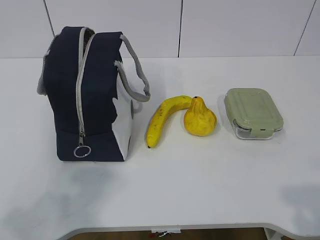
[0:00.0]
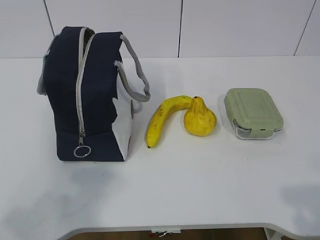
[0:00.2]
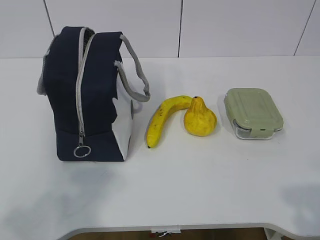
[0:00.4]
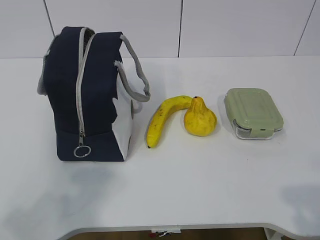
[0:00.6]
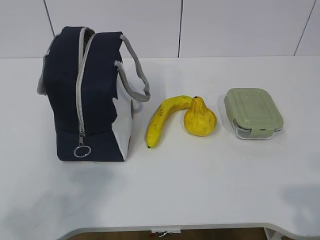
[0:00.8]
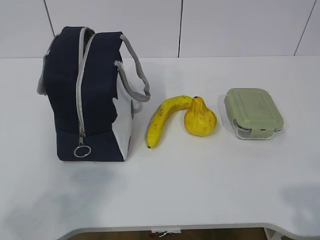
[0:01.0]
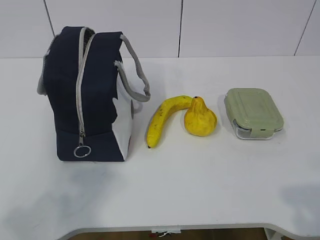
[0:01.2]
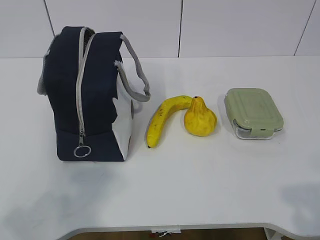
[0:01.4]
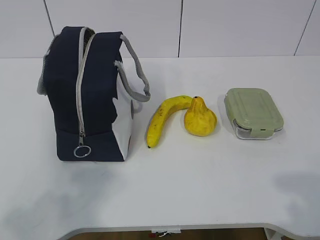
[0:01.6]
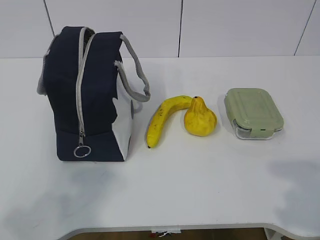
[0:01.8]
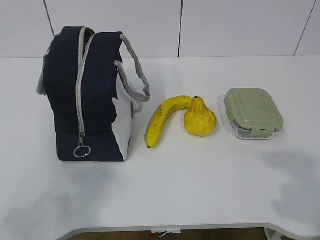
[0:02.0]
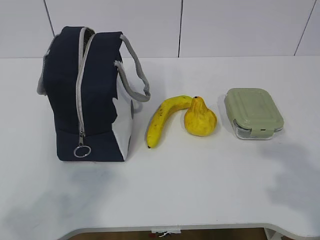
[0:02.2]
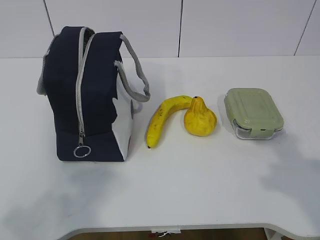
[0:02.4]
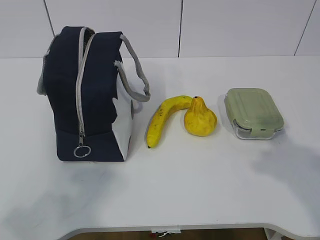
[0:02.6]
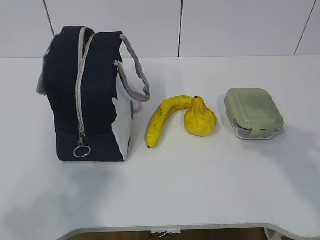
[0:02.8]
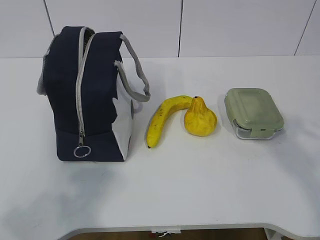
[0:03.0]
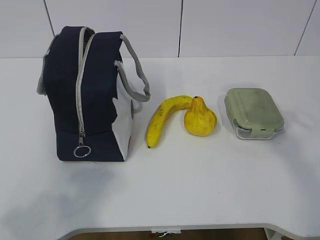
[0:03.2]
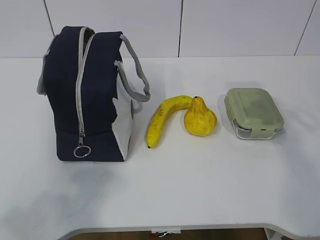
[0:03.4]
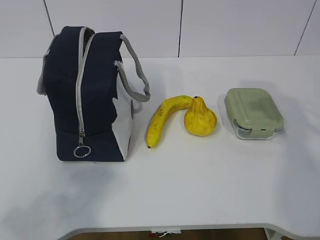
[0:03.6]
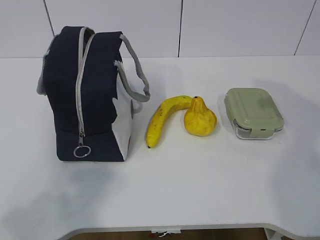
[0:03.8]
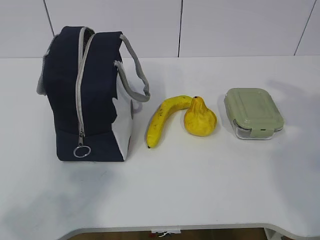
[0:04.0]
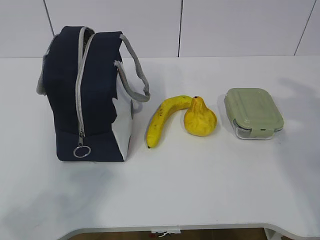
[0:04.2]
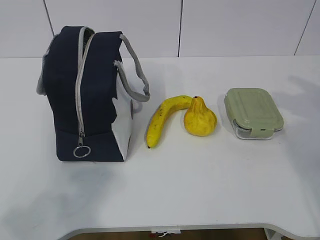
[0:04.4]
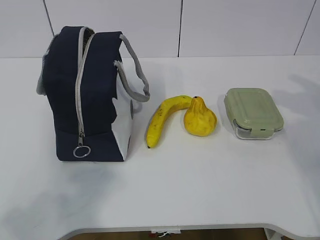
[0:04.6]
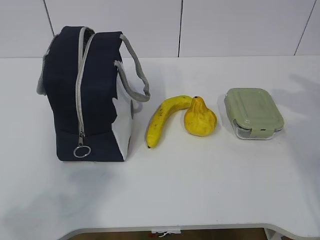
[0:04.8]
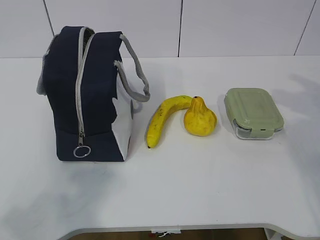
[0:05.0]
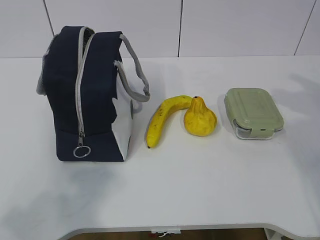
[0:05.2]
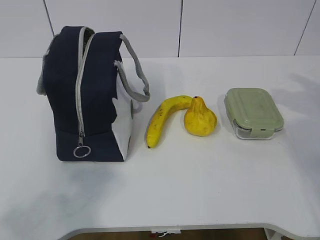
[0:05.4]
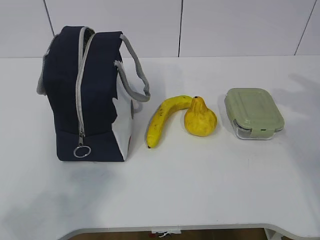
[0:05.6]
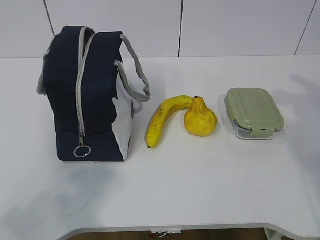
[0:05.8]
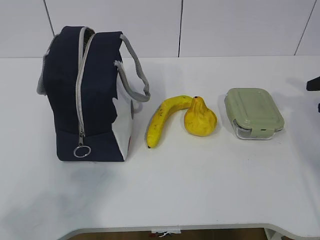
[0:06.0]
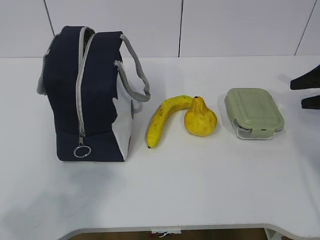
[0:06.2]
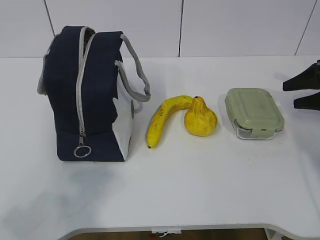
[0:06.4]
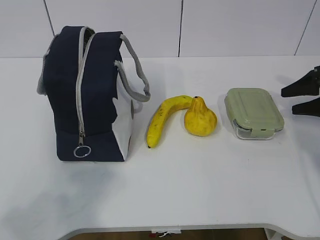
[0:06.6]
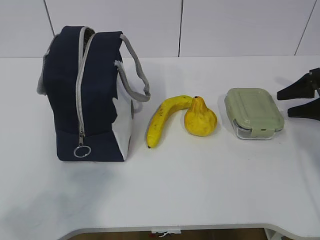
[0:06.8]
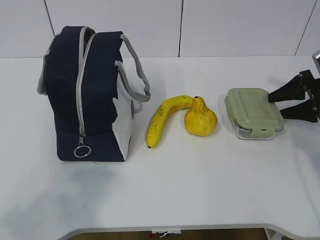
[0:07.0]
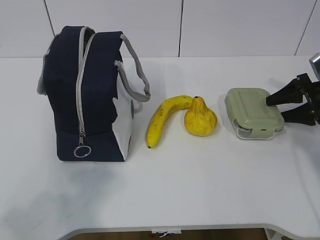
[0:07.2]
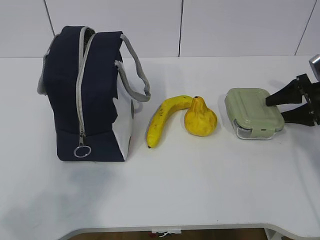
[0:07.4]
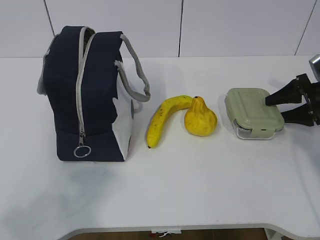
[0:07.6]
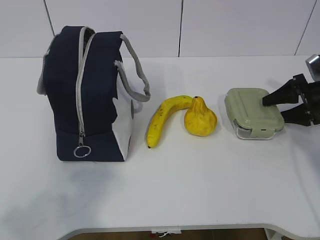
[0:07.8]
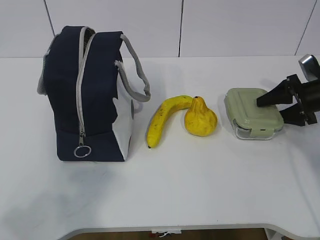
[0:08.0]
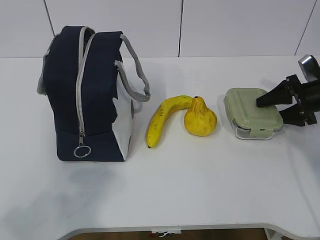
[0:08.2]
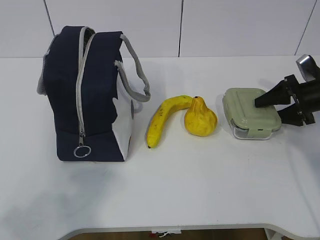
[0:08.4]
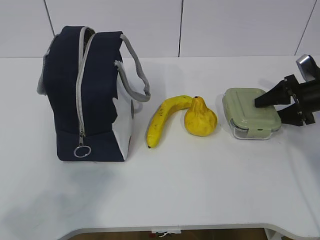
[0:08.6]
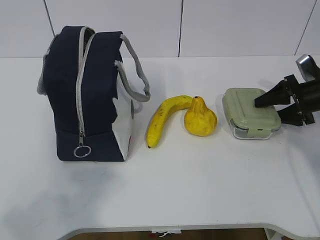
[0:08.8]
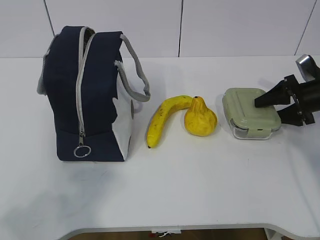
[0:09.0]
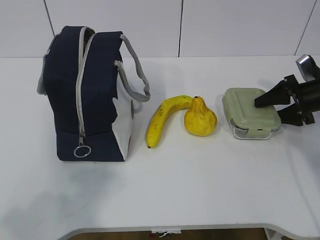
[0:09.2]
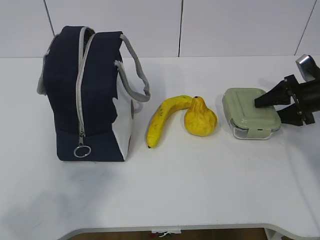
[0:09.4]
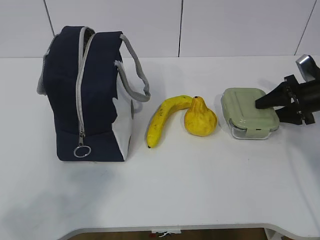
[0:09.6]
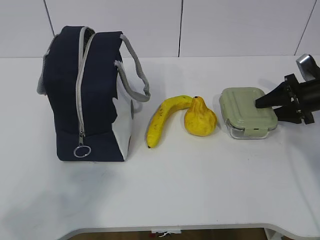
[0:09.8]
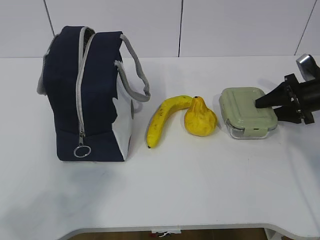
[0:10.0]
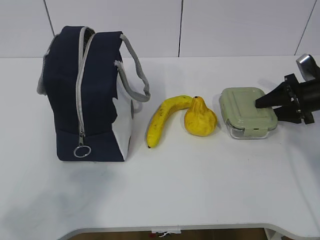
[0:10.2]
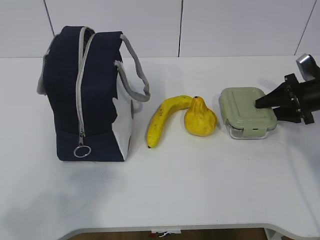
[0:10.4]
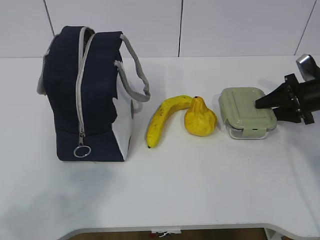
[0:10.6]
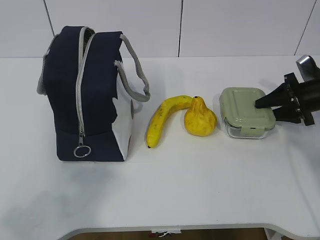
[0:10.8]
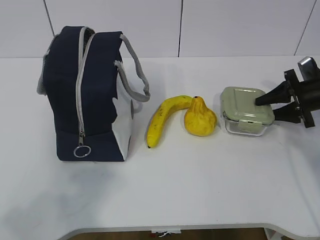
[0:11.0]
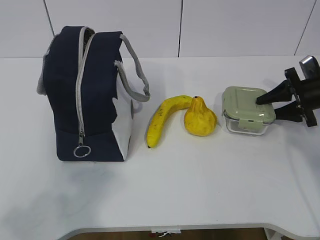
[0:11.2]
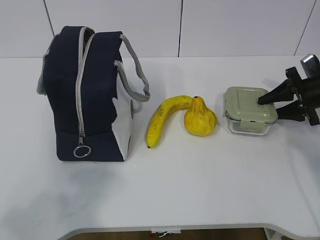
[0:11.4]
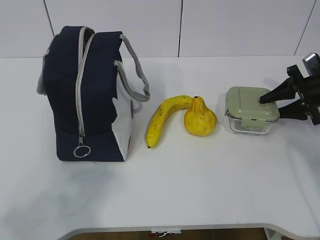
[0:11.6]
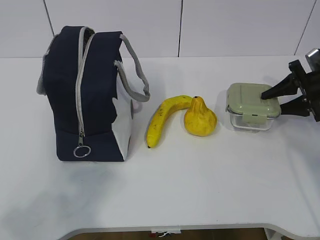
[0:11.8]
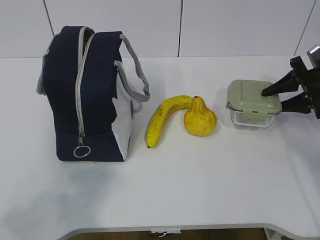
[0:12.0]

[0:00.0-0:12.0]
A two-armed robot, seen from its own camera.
Step, 0:00.0 to 0:09.0: Grasp the box with the right gripper.
0:01.6 to 0:03.0: The right gripper heads forward, covering some 20 cm.
0:06.0 to 0:07.6: The right gripper is displaced downward and forward by approximately 10 cm.
0:07.6 to 0:09.0: The grippers stay close to where they were, moving slightly.
0:09.0 to 0:10.4: Both grippers stay about where they are.
0:10.4 to 0:12.0: The grippers make only small movements.

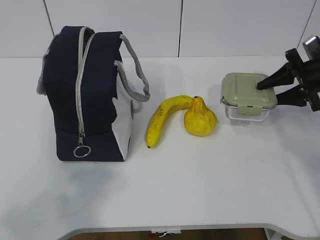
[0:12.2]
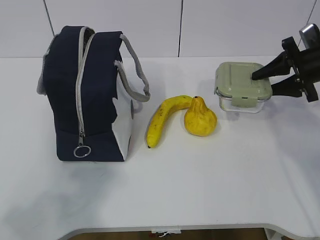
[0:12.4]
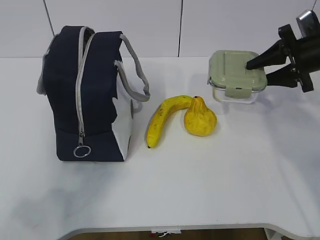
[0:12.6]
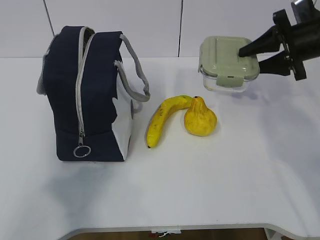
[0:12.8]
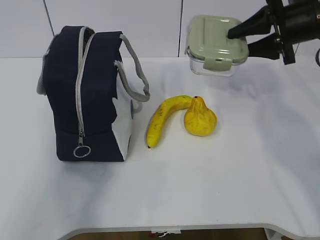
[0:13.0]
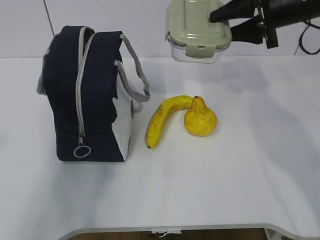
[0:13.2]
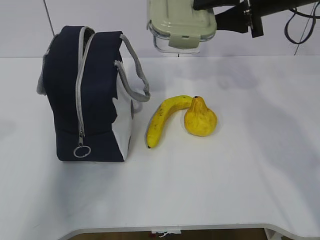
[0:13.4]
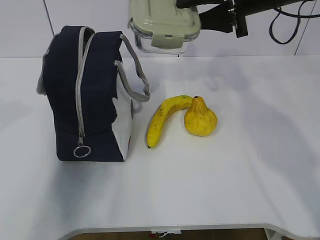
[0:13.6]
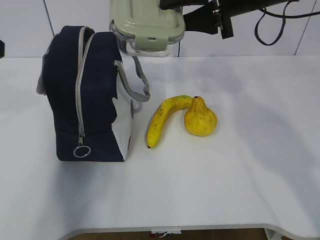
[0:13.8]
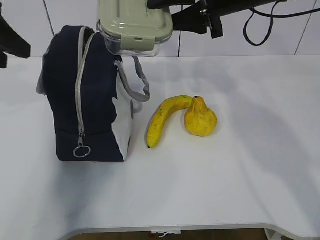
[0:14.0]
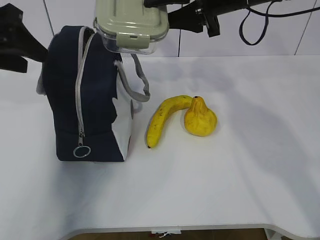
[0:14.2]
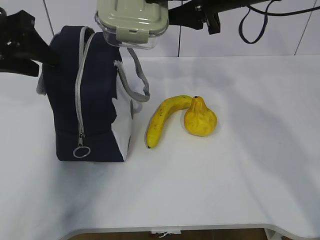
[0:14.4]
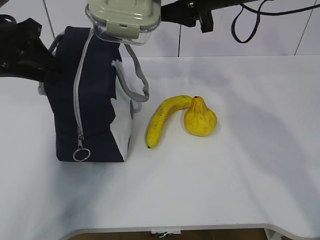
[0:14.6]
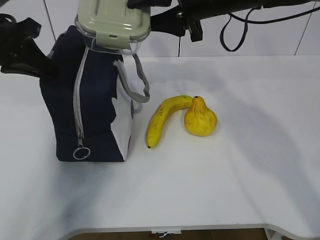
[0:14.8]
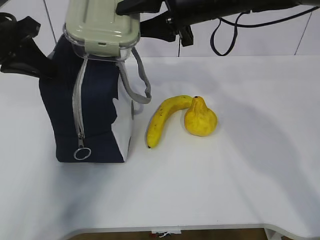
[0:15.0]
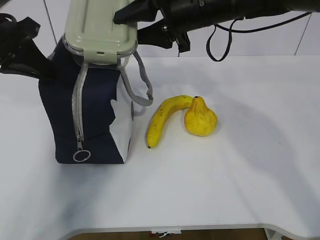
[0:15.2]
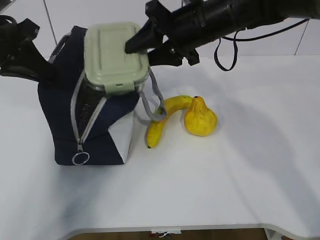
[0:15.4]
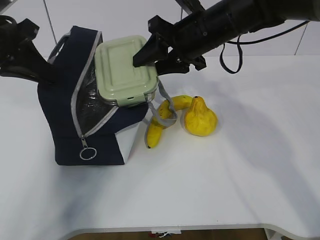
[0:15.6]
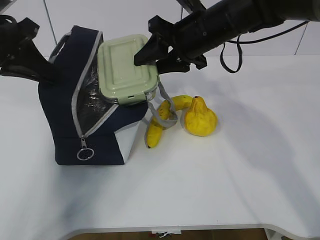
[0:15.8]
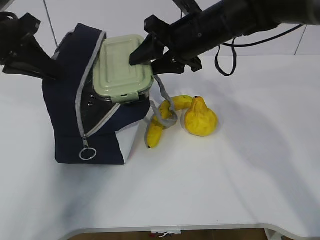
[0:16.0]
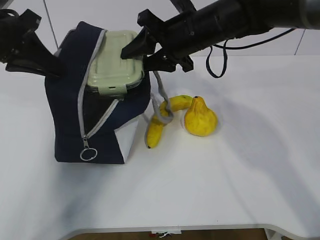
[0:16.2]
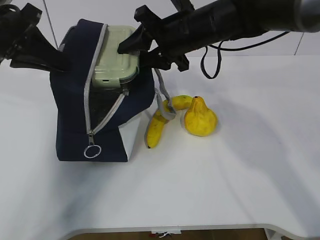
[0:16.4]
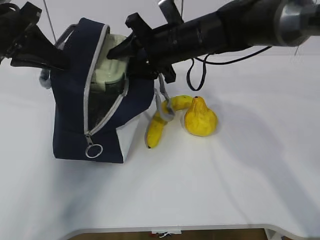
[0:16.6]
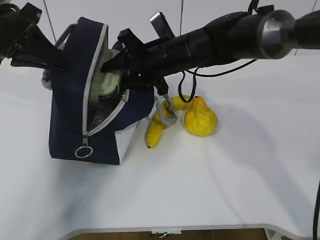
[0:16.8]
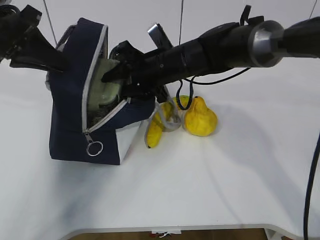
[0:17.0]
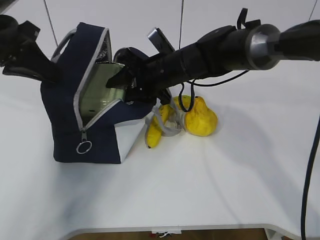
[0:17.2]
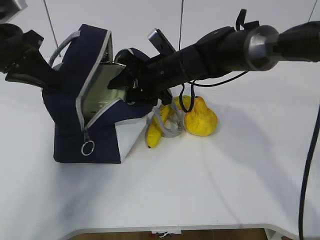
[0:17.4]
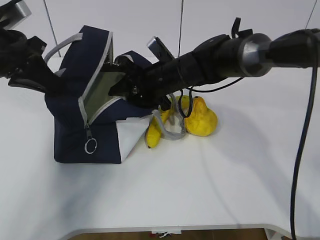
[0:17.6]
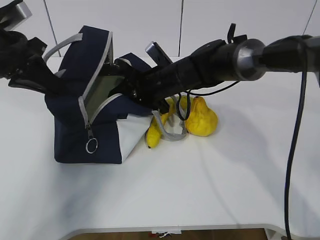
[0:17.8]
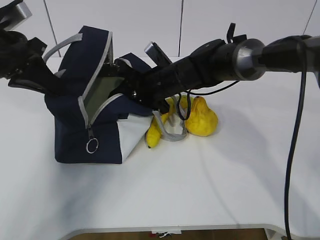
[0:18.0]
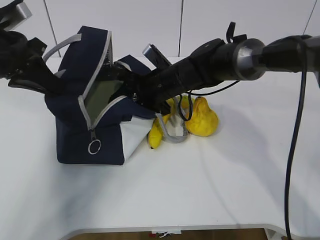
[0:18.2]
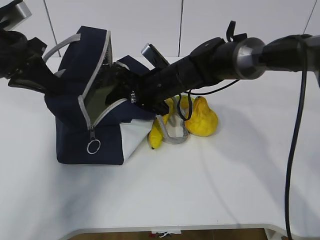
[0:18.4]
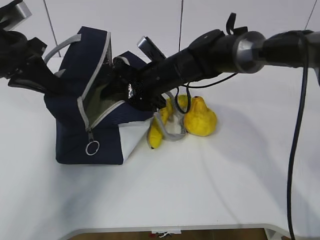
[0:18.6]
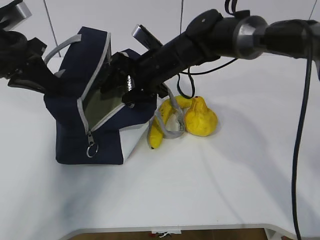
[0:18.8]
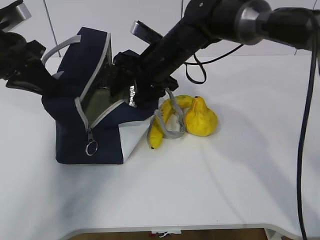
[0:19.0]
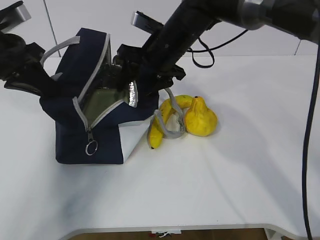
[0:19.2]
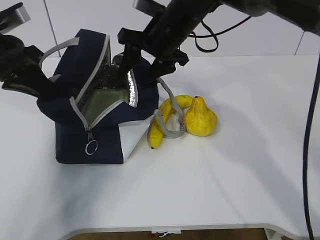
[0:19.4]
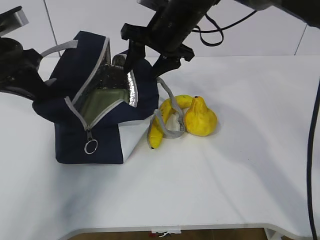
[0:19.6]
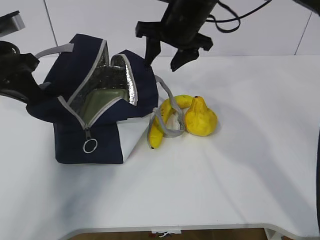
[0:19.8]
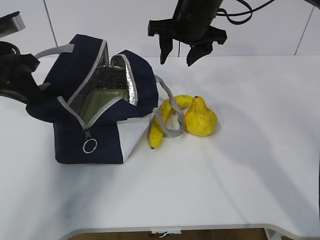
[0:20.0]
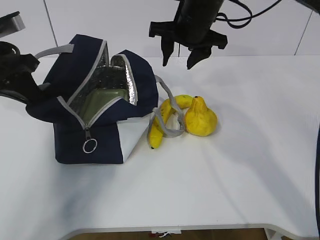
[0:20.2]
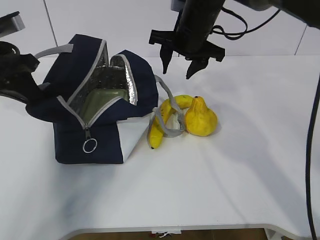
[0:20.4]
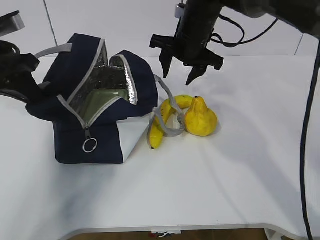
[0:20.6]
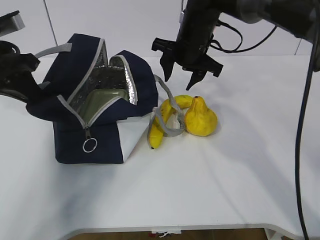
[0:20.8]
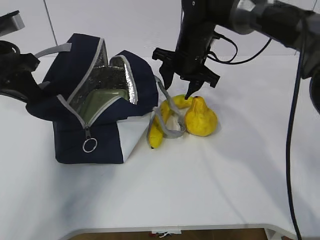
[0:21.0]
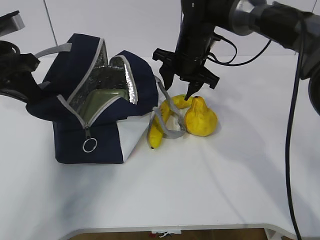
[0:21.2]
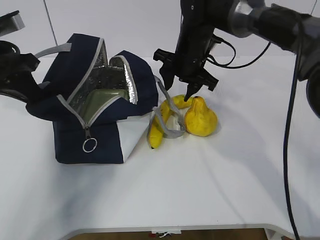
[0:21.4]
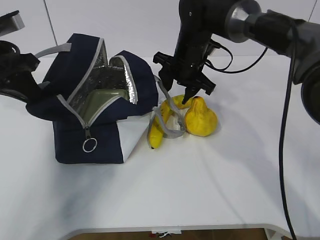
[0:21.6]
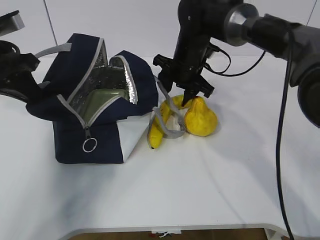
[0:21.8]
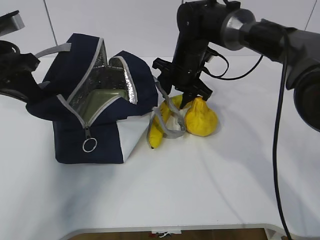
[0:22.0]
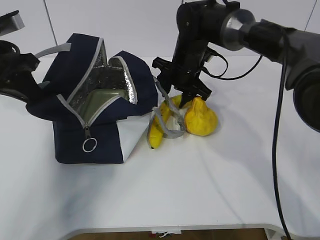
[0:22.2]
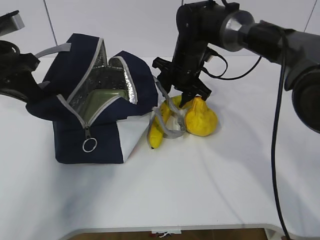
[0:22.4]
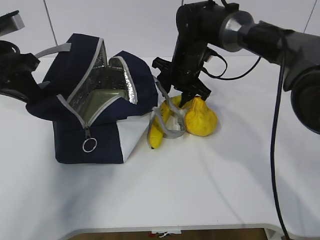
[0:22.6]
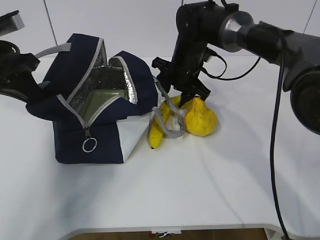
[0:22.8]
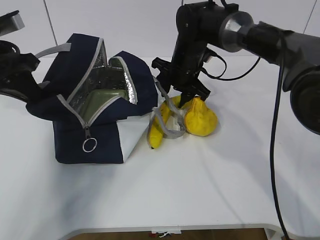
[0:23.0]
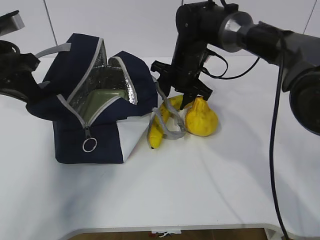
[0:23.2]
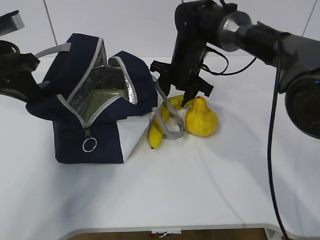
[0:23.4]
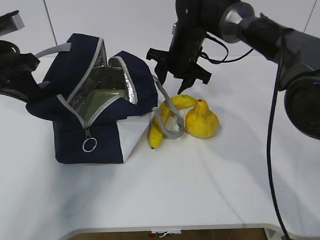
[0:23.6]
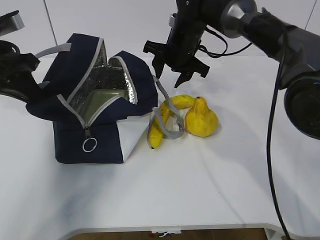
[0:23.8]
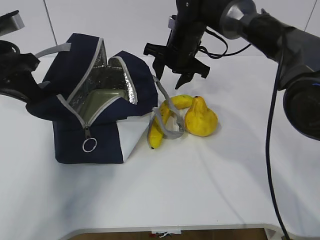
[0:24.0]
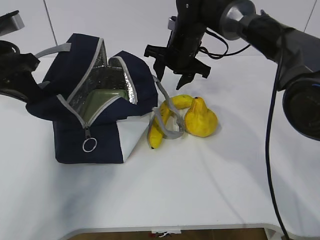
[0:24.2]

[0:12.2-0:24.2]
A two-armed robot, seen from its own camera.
Step, 0:12.2 to 0:19.4: Place the box into the package with the right gripper.
0:12.2 to 0:13.8: The left gripper is displaced forward by roughly 25 cm, and opens. Meanwhile the right gripper travels to the left and upward by approximately 25 cm.
0:13.8 to 0:15.2: The right gripper shifts approximately 5 cm to the left; the left gripper is displaced forward and downward by about 10 cm, and closes its fingers.
0:15.2 to 0:16.6: The right gripper moves downward, roughly 5 cm.
0:16.6 to 0:18.2: The right gripper goes approximately 10 cm downward.
0:18.2 to 0:19.8: The right gripper moves upward, approximately 15 cm.
0:19.8 to 0:21.2: The right gripper moves downward, approximately 5 cm.
0:21.2 to 0:22.6: The grippers move only a little.
